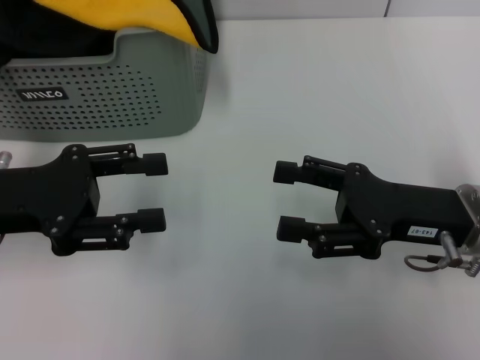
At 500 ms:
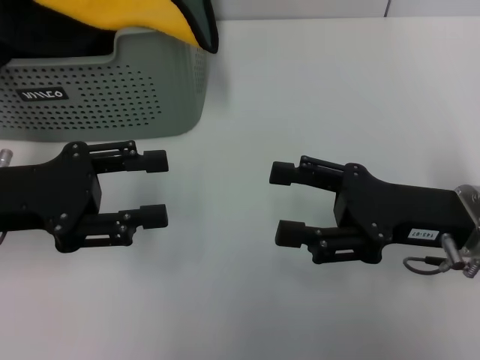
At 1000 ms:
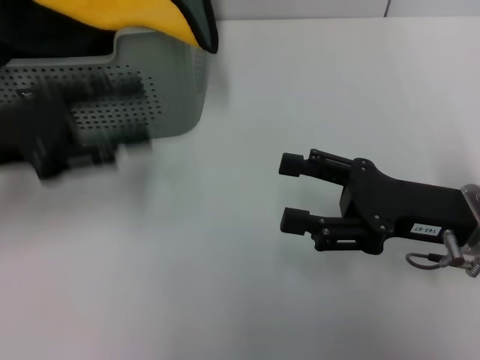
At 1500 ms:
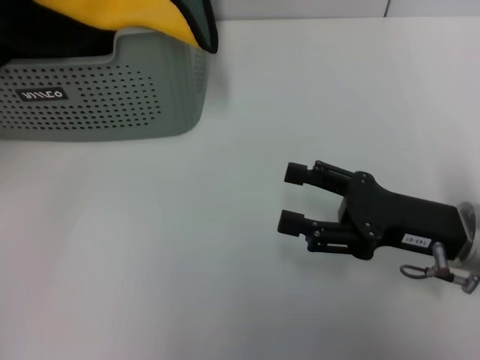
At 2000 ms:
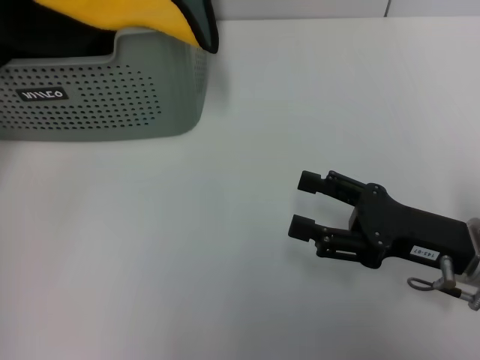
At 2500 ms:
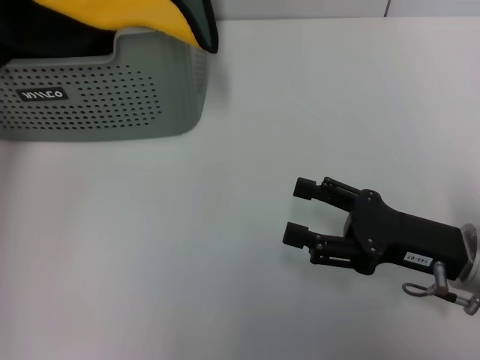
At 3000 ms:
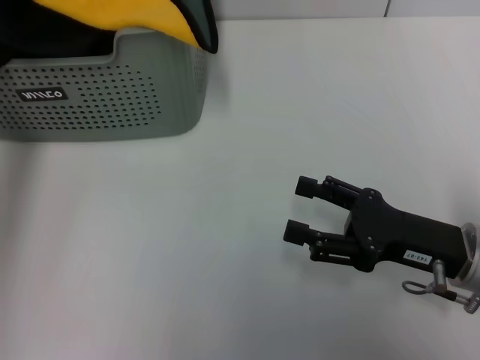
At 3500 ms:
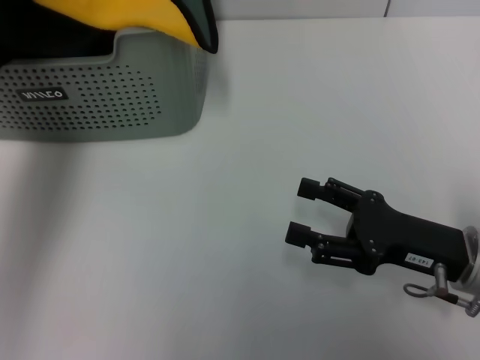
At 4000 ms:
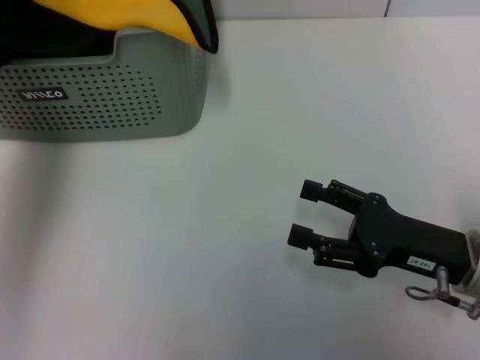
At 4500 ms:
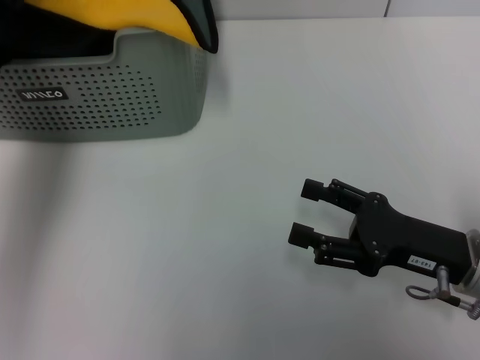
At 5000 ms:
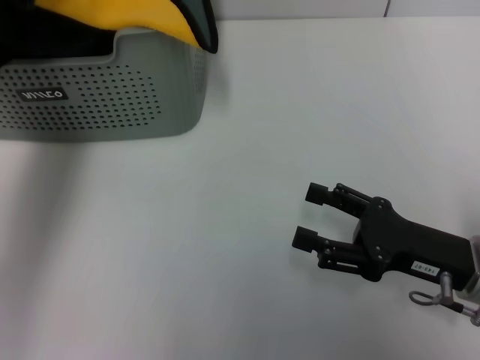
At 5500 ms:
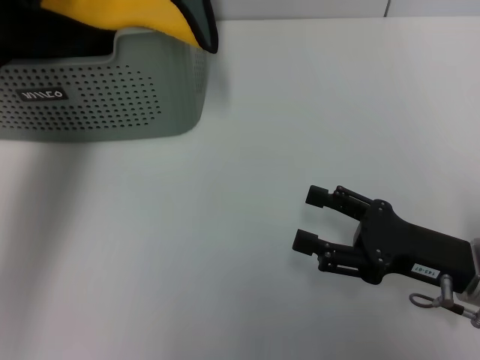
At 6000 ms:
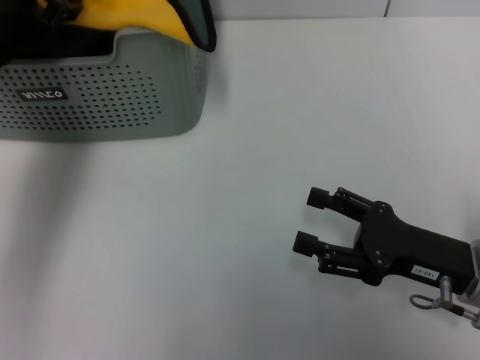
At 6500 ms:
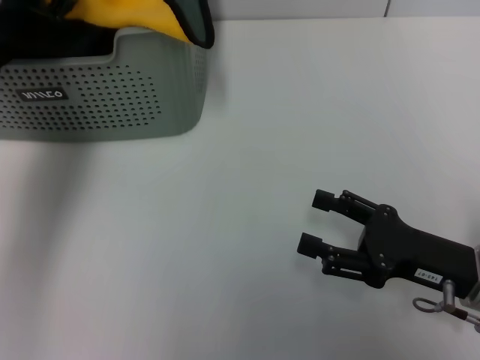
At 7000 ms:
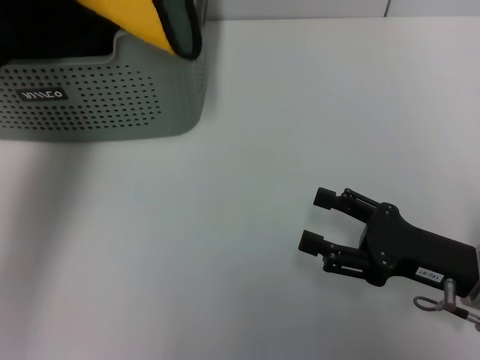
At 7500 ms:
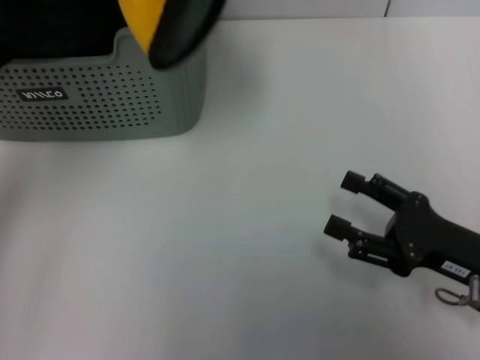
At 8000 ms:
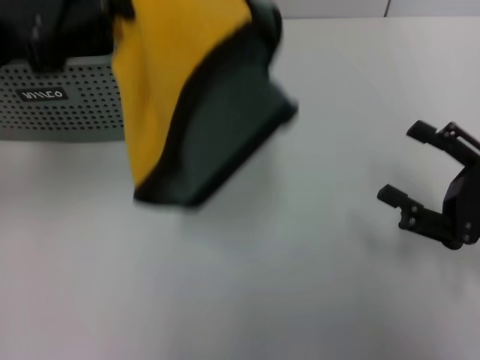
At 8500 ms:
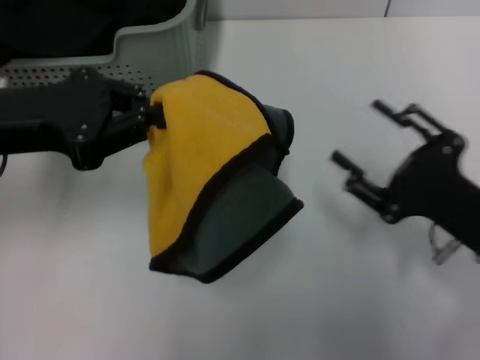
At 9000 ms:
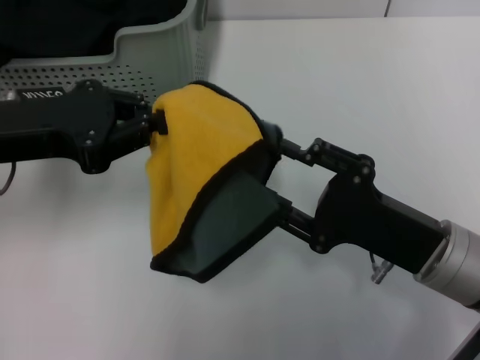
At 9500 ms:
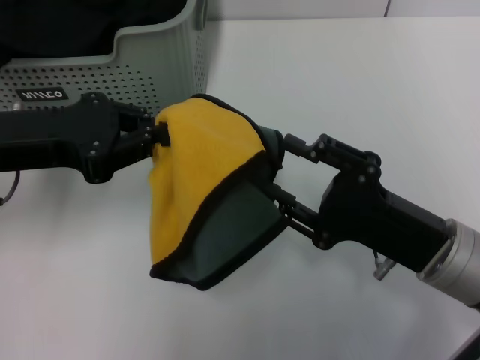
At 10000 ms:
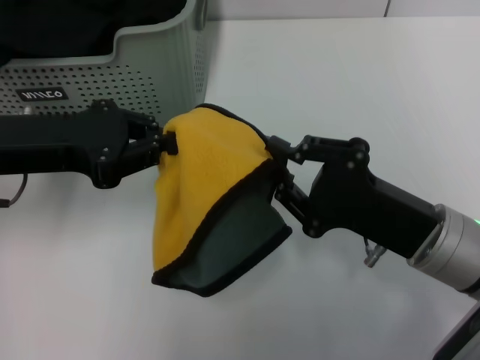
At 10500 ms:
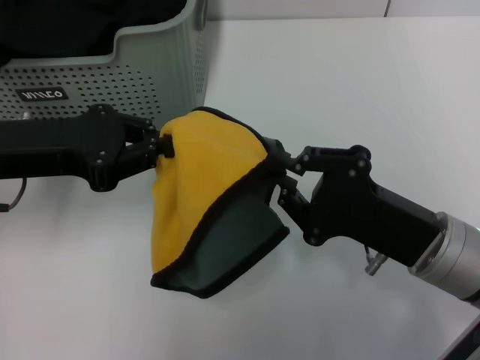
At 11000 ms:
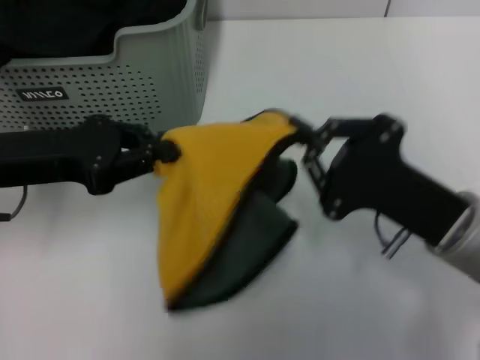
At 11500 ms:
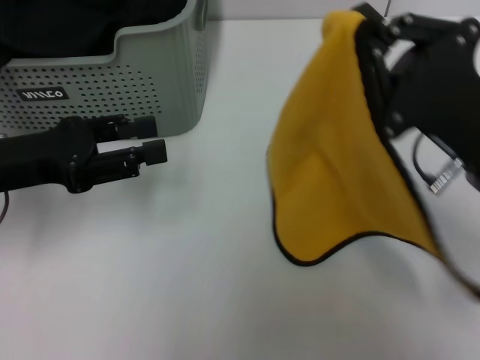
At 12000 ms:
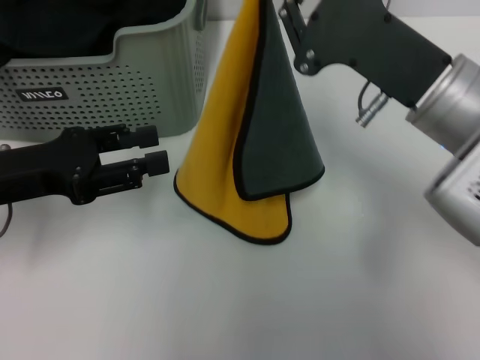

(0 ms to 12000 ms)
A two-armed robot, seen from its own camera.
Task of the whole recording: pick up the towel from the storage box and lay it flat on the table.
Step, 0 ms - 6500 ms: Pick up a towel with the left gripper.
Step, 7000 ms - 10500 ms: Spread the towel flat with the left gripper.
0 ms - 2000 ms: The left gripper heads upward and forward, covering roughly 15 cm.
2000 ms - 4000 ms: The left gripper shifts about 5 cm to the right.
4000 ms - 6000 ms: The left gripper closes, then opens again.
6000 ms - 8000 ms: The right gripper travels to the right by about 5 cm. Meanwhile the left gripper heads backward, covering approximately 10 cm, and closes its fingers.
8000 ms - 10000 ms: The right gripper travels to the left by about 10 cm, and closes; the left gripper heads downward, covering approximately 10 cm.
10000 ms - 12000 ms: The right gripper is displaced upward by roughly 10 cm, and closes; the left gripper moves approximately 5 cm, and opens its fingers.

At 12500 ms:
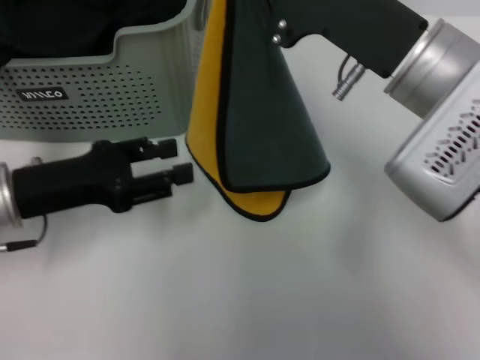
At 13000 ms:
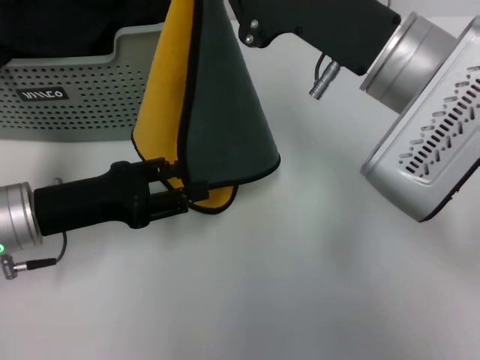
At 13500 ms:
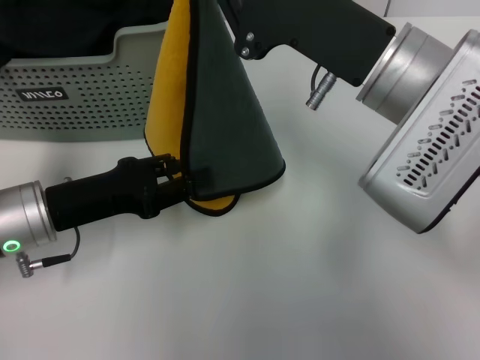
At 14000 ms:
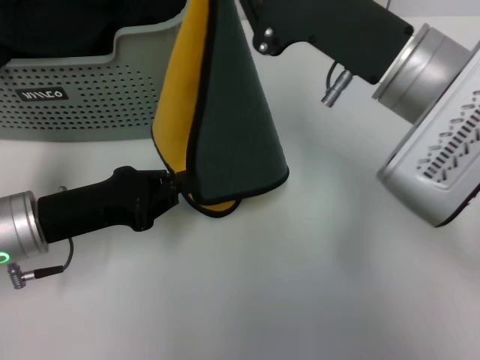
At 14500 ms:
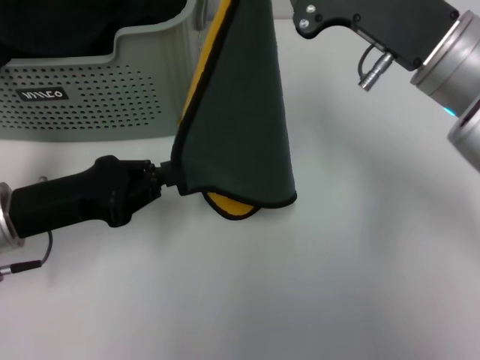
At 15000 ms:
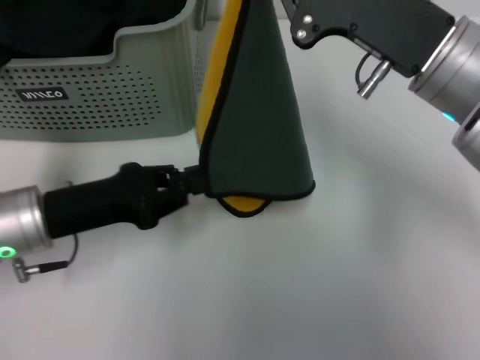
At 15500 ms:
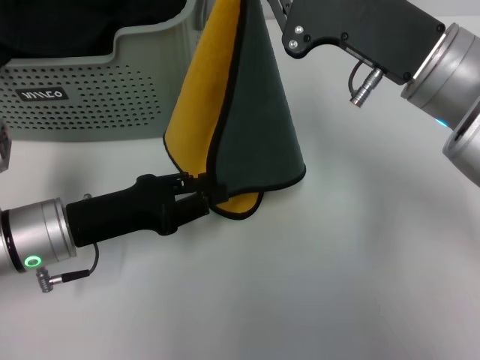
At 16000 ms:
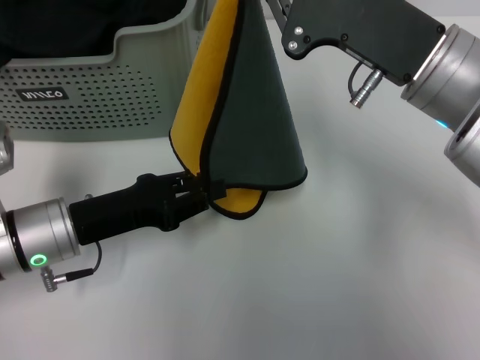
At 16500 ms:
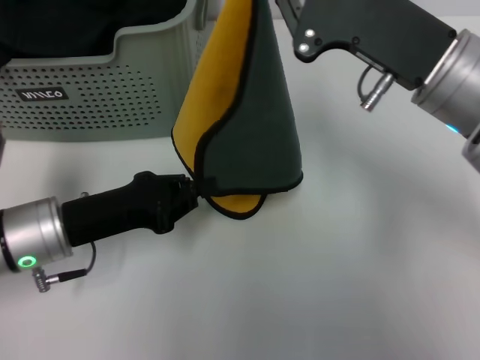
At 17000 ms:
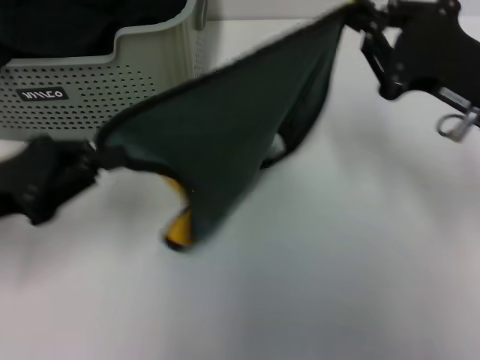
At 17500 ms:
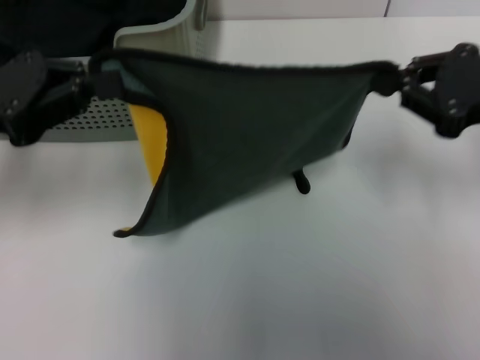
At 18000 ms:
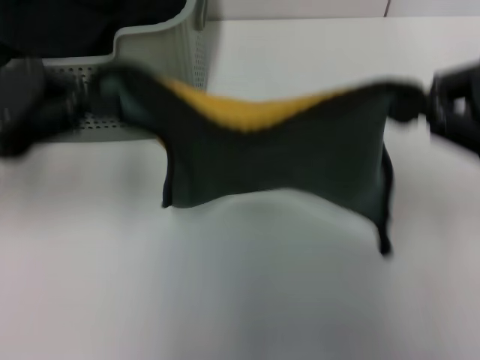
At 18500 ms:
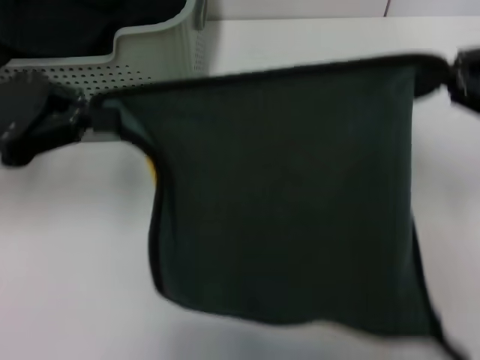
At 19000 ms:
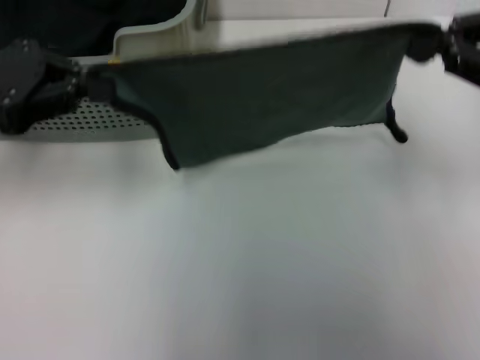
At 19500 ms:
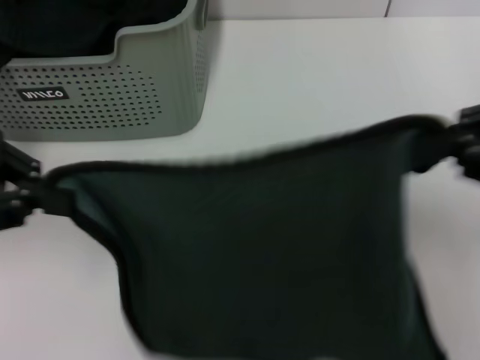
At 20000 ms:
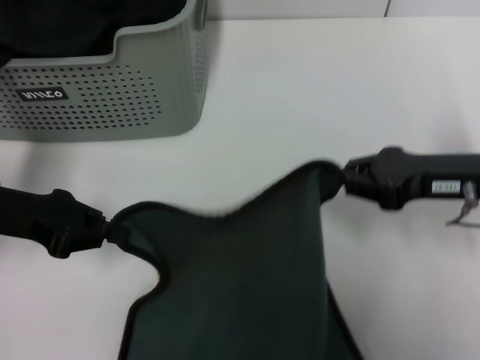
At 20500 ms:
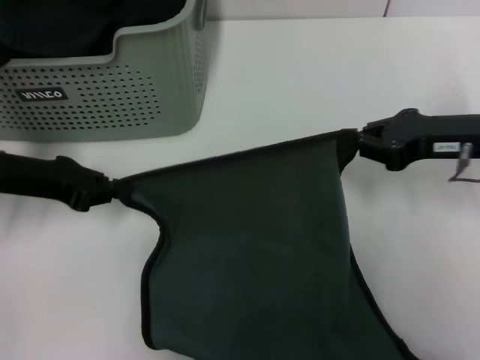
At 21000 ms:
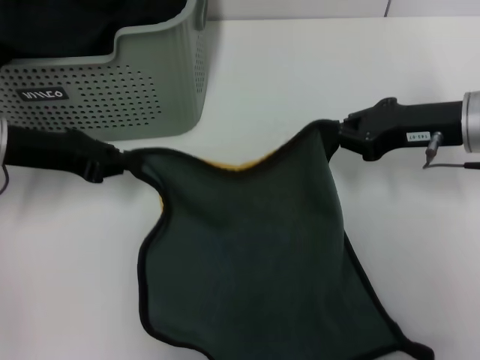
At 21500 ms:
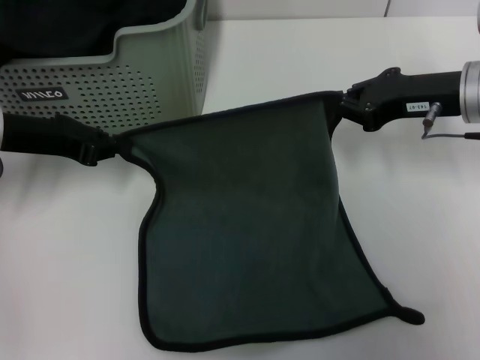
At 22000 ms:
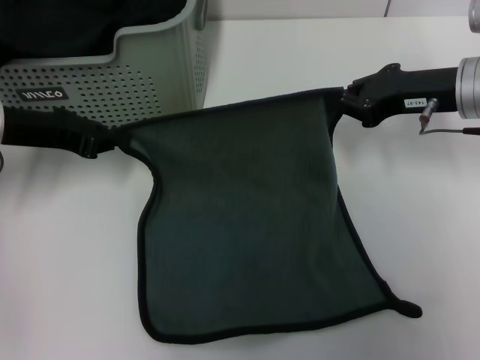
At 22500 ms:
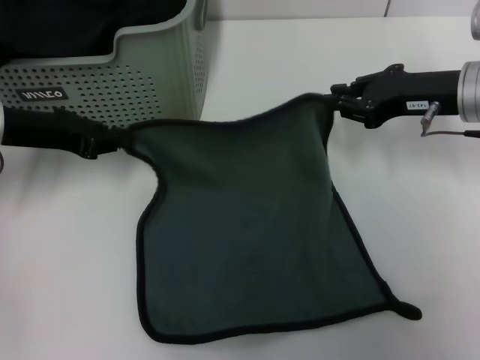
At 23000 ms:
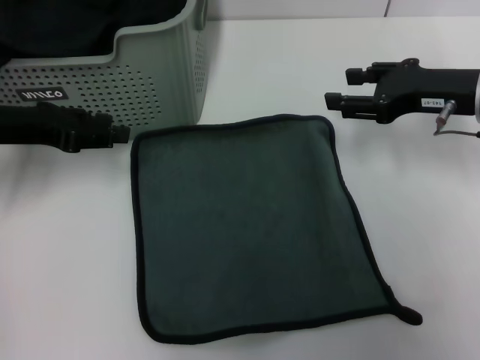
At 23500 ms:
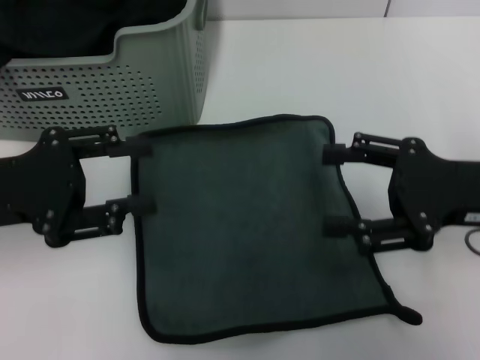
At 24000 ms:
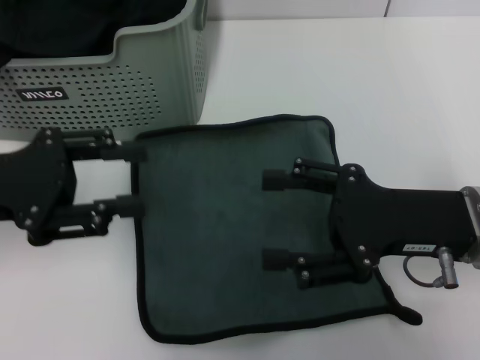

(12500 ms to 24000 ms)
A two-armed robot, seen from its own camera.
Task of the whole recording: pick up the towel from the storage box and lay it flat on the table.
Step, 12500 ms - 22500 ms: Spread the towel flat with the right gripper.
12500 ms - 14500 ms: The left gripper closes.
14500 ms - 16500 ms: The left gripper opens, then closes once more.
16500 ms - 18500 ms: The right gripper goes approximately 15 cm to the right. The left gripper goes roughly 15 cm upward and to the left.
18500 ms - 20000 ms: The right gripper moves downward and to the left, roughly 10 cm; the left gripper shifts approximately 10 cm downward.
20000 ms - 22000 ms: Both grippers travel together forward, some 5 cm.
22000 ms - 24000 ms: Both grippers travel together backward, approximately 10 cm. The left gripper opens its fingers, while the right gripper opens.
